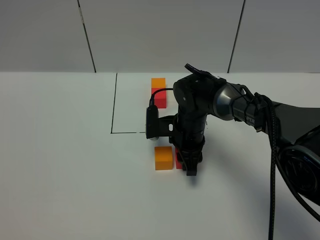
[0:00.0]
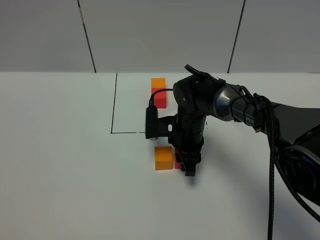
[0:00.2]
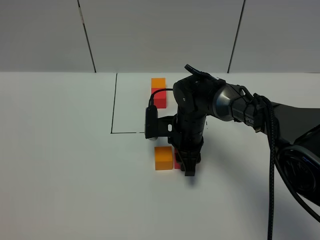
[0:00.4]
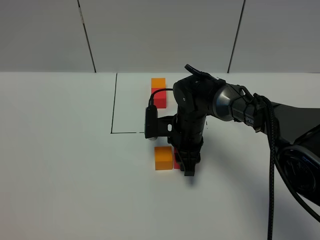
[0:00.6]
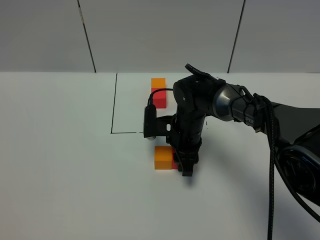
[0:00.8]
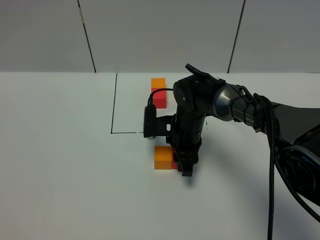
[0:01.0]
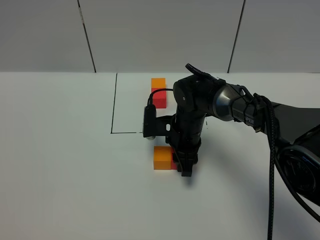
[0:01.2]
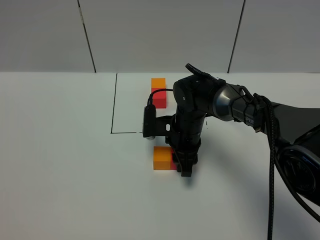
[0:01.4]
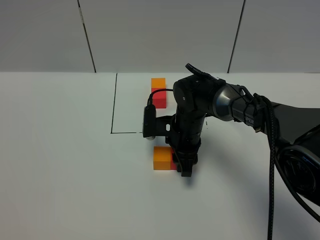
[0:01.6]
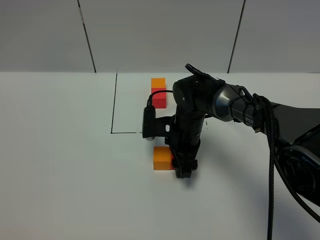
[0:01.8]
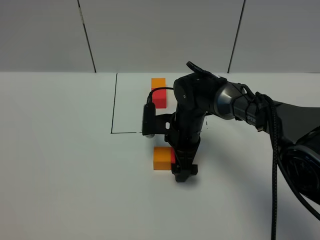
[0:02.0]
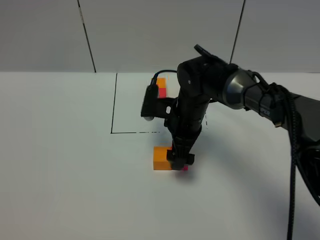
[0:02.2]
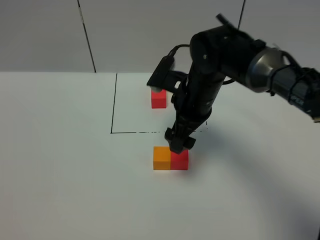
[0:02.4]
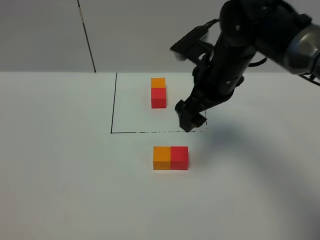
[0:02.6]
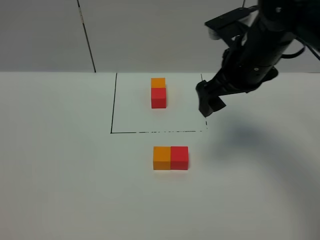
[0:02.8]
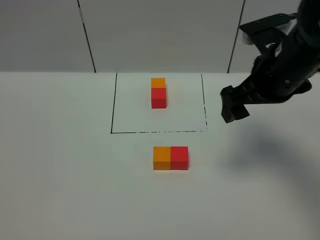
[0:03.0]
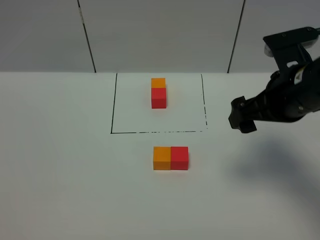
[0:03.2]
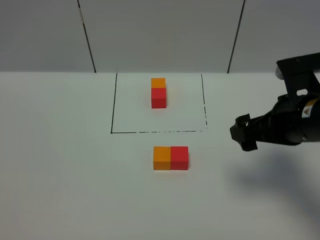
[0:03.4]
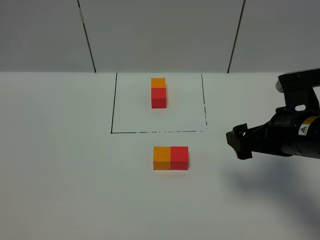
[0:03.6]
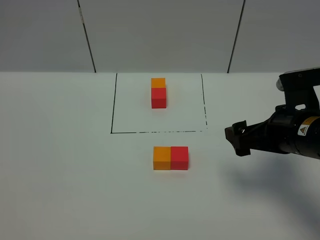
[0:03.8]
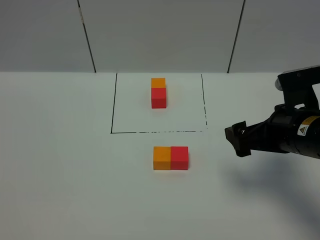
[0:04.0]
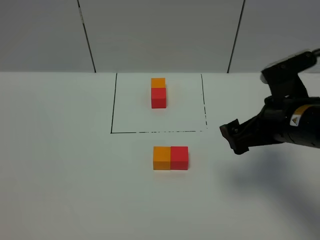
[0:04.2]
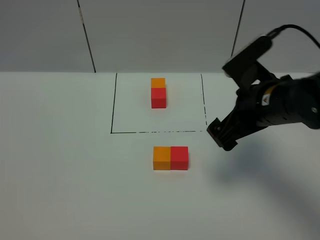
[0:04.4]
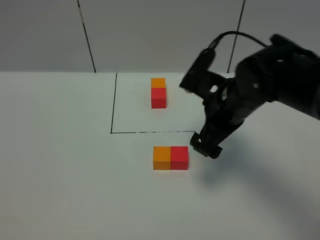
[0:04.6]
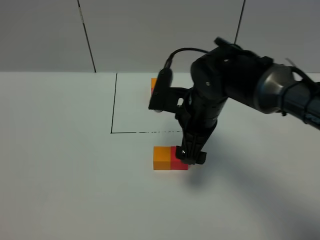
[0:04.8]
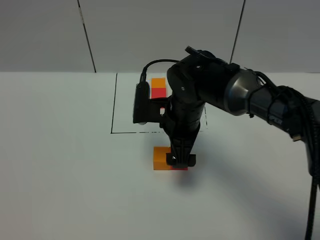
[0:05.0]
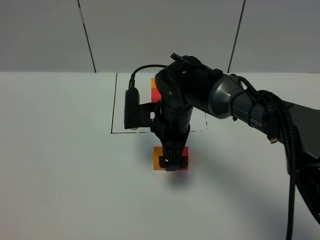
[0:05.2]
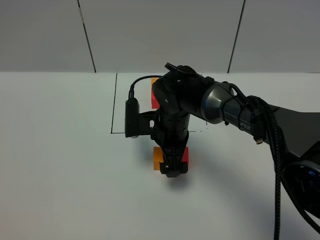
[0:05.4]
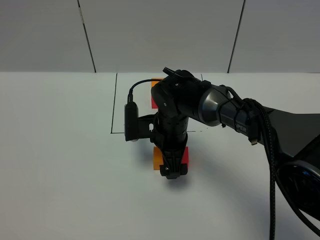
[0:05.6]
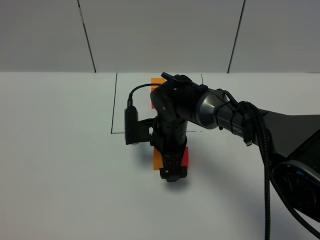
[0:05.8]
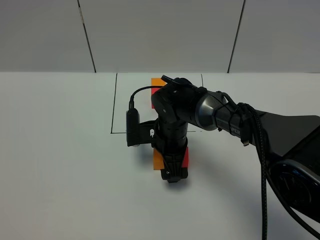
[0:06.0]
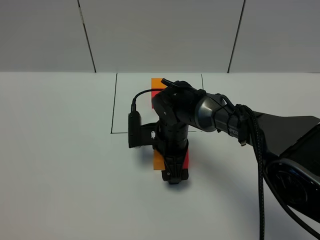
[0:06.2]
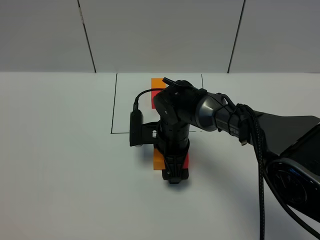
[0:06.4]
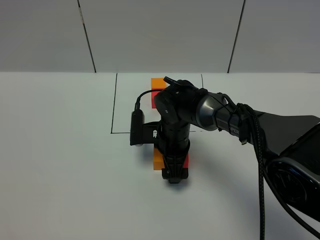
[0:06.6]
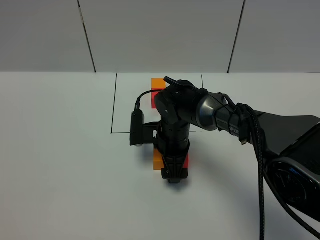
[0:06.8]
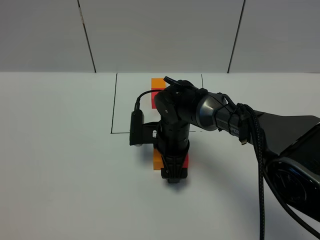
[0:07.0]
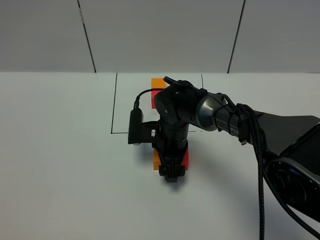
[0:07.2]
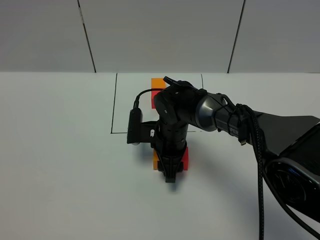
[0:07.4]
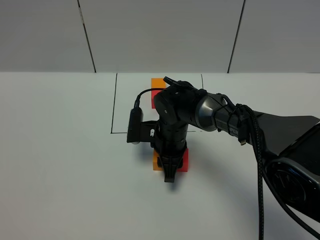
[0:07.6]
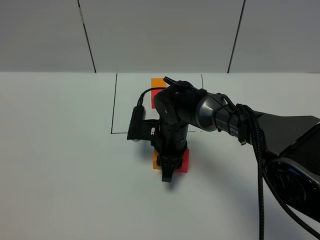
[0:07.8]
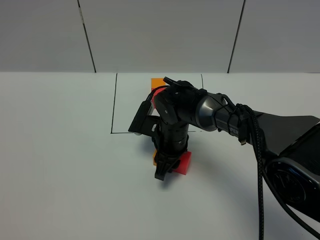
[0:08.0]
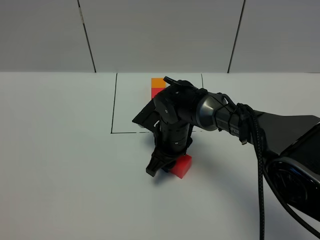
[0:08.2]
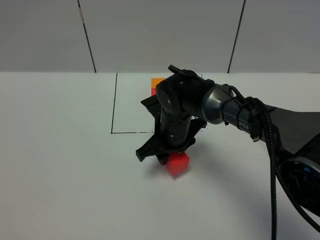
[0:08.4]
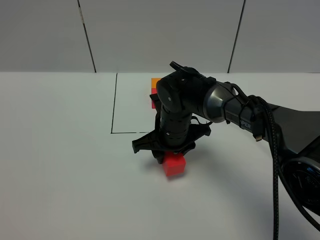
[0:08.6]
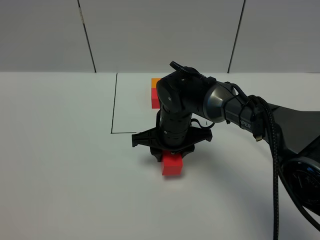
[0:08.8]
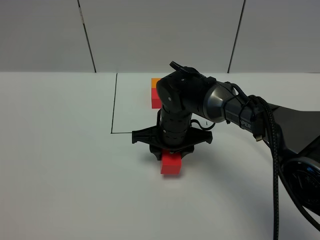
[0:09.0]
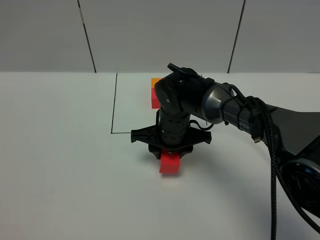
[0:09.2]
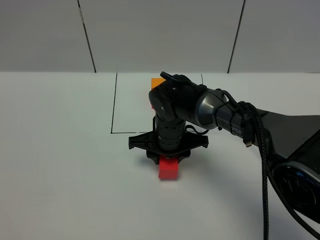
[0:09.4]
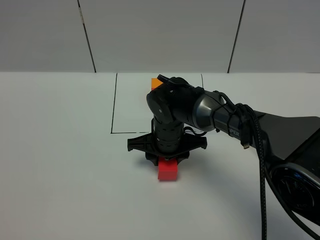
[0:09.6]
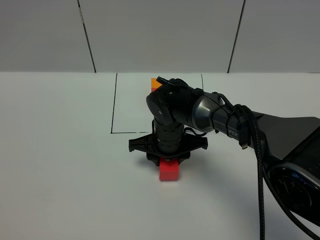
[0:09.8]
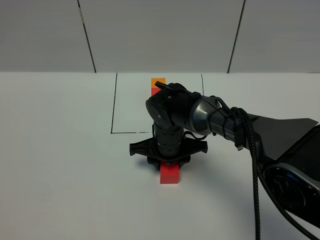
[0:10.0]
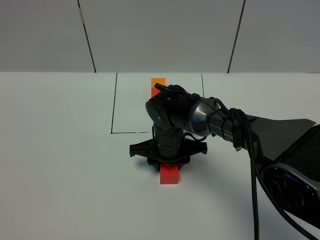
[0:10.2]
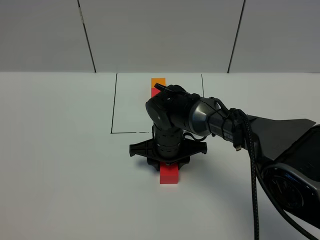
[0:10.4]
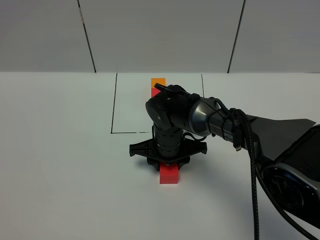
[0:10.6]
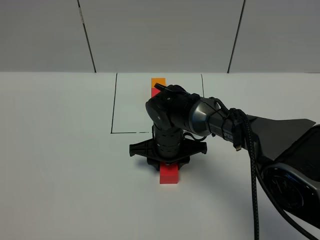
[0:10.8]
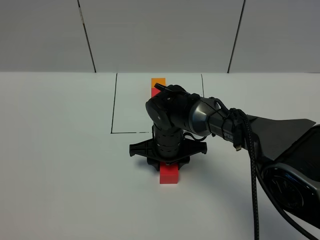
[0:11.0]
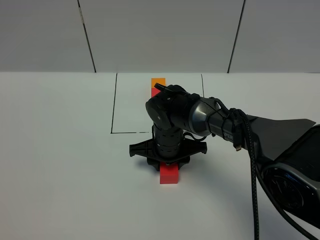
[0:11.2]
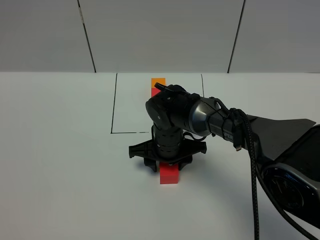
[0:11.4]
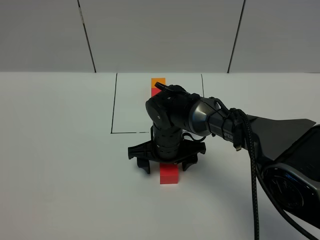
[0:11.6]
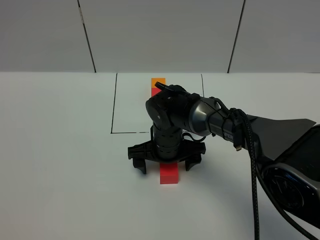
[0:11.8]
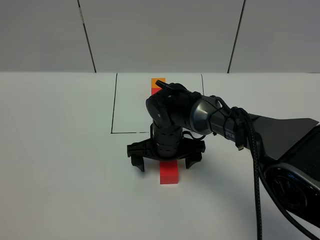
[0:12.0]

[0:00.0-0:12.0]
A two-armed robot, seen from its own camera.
Task of the whole recording: According to the building block template in front, assemble the scattered blocks together.
Step, 0:00.0 to 0:02.0: Put the red cube on the right of the orange cube.
0:00.0 to 0:01.6: Both grippers stay put.
0:01.6 to 0:03.0: The right gripper is displaced upward and to the right by some 25 cm, and opens.
0:03.0 to 0:04.4: The right gripper goes roughly 5 cm downward.
0:04.4 to 0:06.0: The right gripper shifts approximately 20 cm downward, to the left and forward.
0:06.0 to 0:07.6: The right gripper closes up.
0:09.0 to 0:10.4: There are only small adjustments of the grippers.
0:10.4 to 0:12.0: The right gripper opens up.

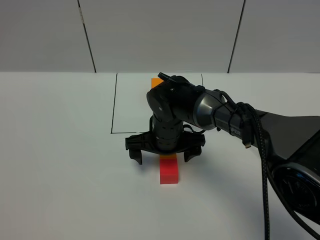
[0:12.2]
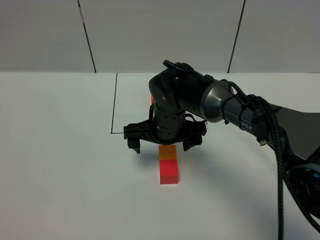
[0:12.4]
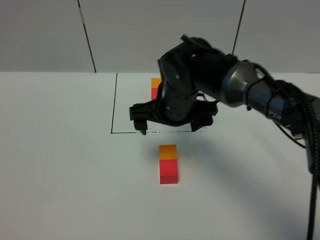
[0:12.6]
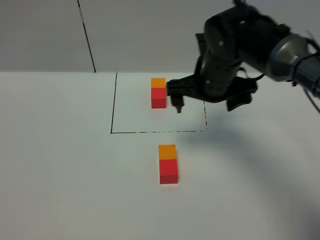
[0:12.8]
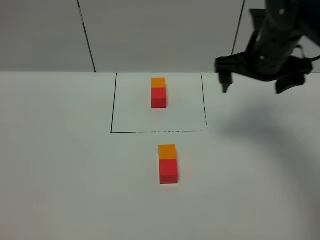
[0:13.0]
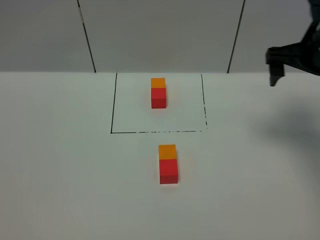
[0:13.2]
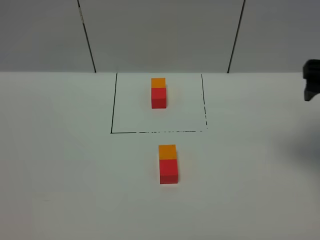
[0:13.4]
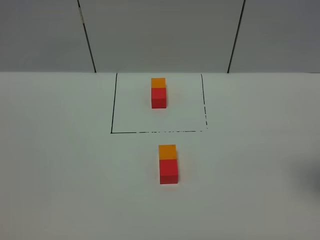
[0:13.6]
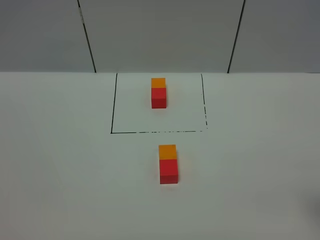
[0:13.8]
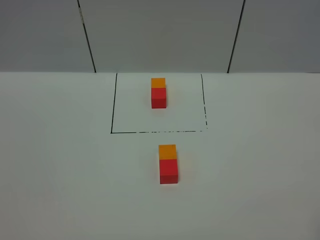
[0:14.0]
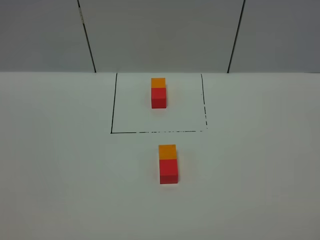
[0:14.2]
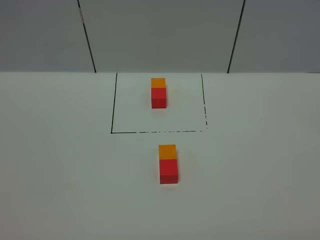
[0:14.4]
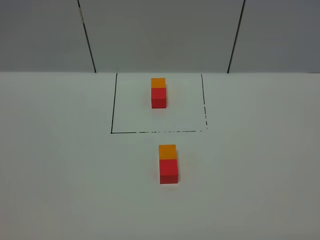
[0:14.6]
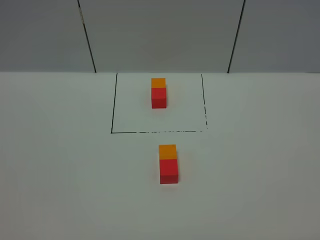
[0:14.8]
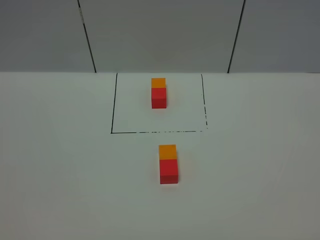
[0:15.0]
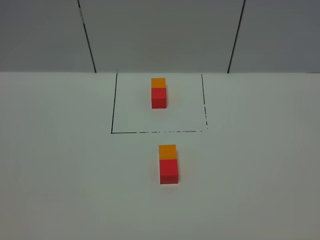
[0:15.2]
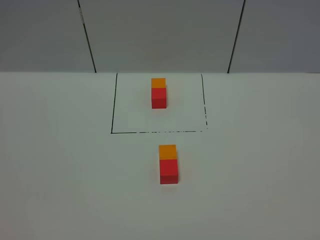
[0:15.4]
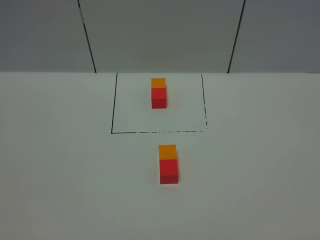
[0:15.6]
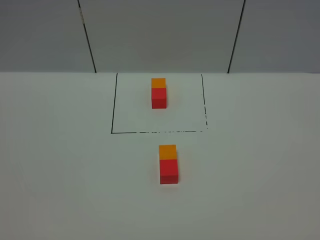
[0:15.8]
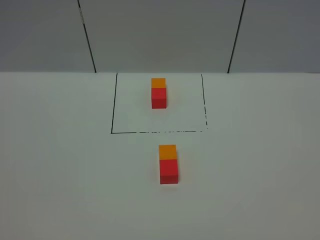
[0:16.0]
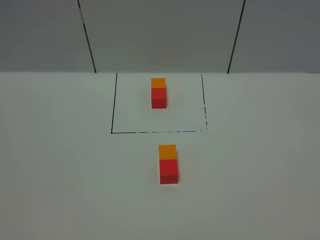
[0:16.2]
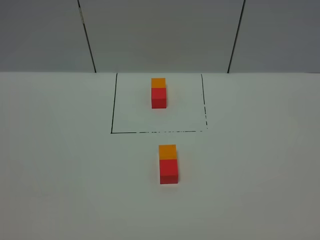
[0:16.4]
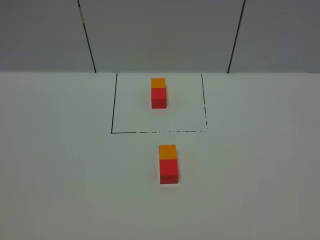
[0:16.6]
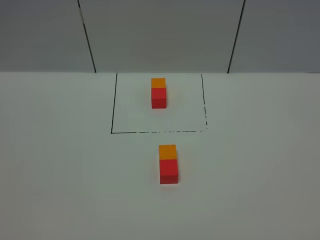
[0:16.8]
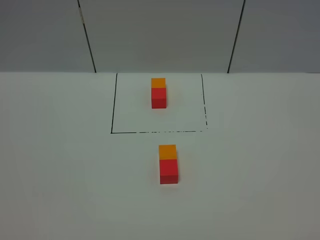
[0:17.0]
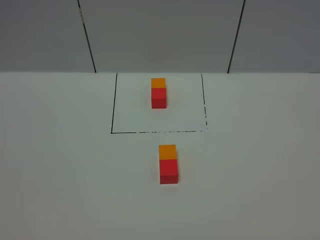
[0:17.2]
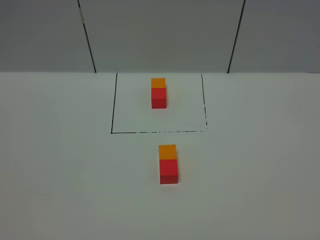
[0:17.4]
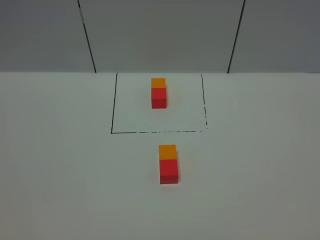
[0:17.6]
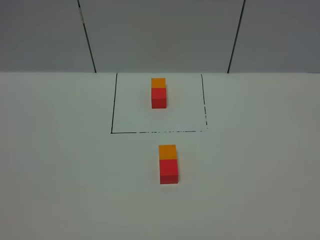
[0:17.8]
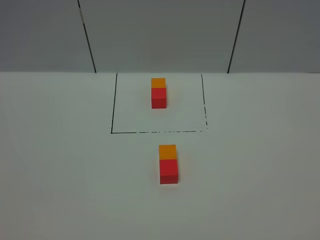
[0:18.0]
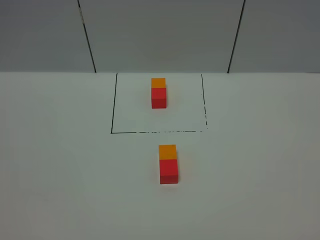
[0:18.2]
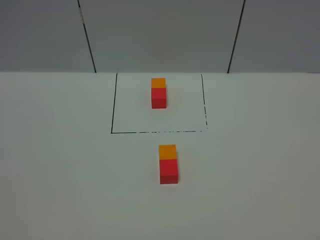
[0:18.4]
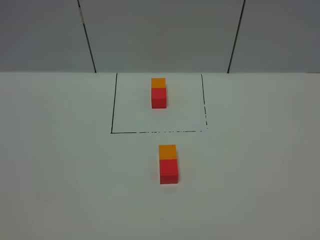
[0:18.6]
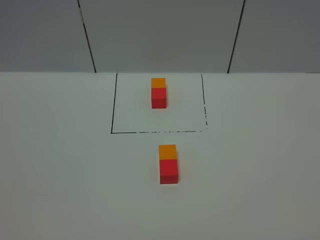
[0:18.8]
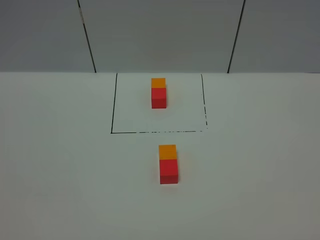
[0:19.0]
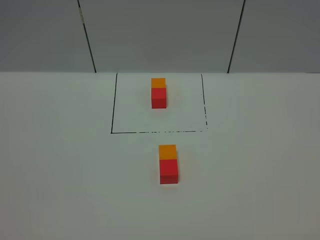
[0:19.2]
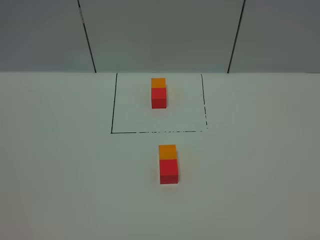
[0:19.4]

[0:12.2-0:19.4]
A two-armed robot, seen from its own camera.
Task of the whole recording: According to the building block template in front, assemble the scattered blocks together.
0:12.2 to 0:13.6: The right gripper goes about 40 cm to the right, upward and backward.
0:16.6 to 0:19.4: Both grippers stay put.

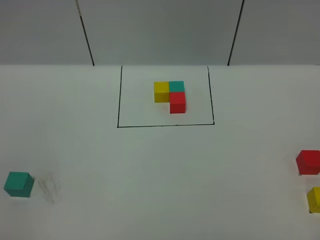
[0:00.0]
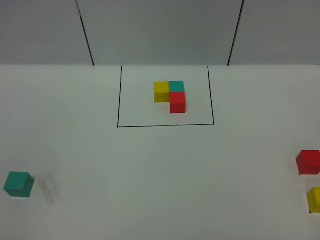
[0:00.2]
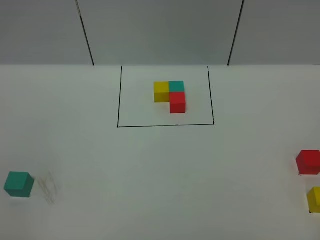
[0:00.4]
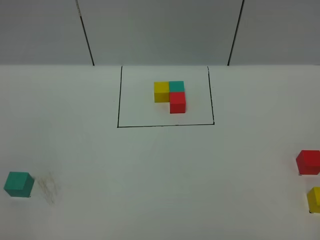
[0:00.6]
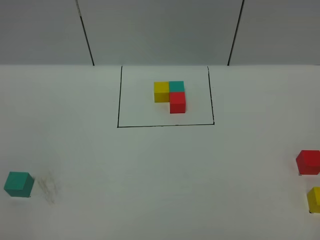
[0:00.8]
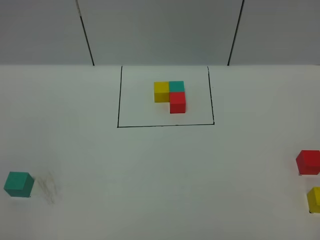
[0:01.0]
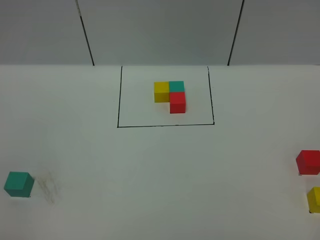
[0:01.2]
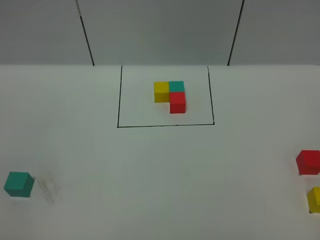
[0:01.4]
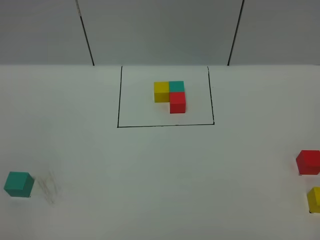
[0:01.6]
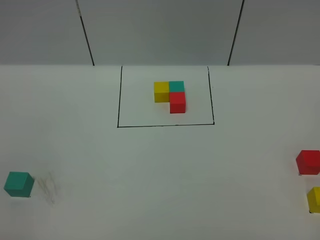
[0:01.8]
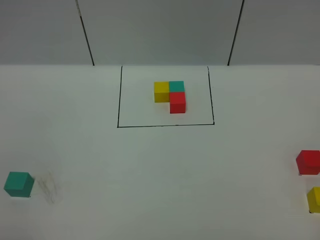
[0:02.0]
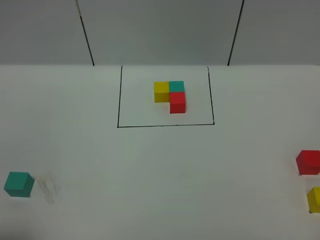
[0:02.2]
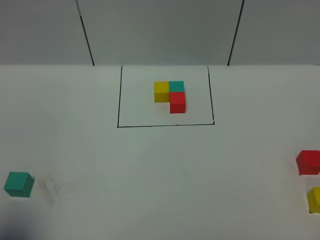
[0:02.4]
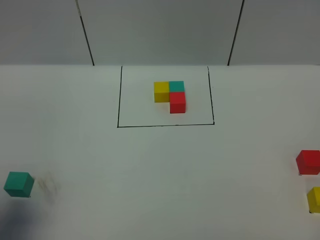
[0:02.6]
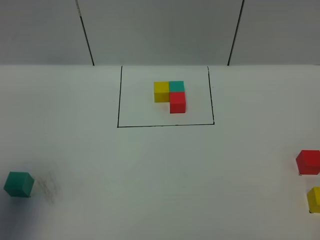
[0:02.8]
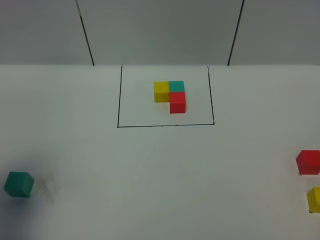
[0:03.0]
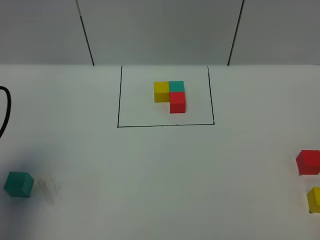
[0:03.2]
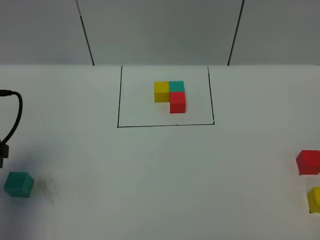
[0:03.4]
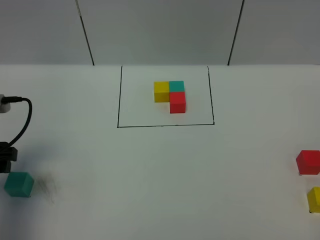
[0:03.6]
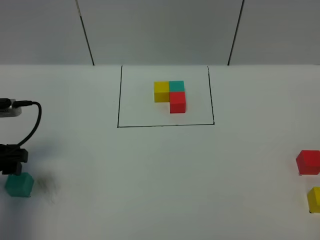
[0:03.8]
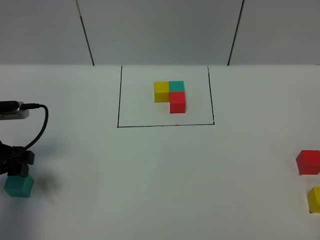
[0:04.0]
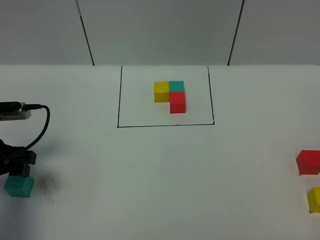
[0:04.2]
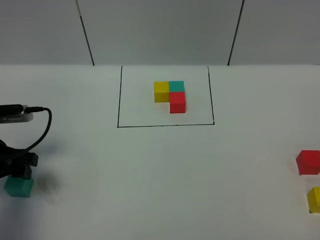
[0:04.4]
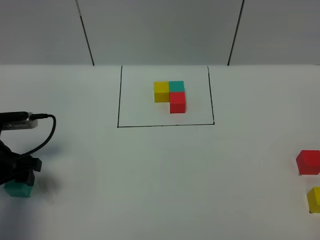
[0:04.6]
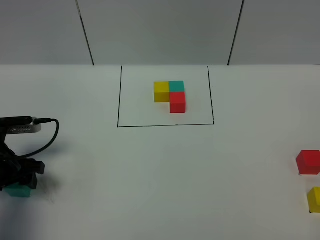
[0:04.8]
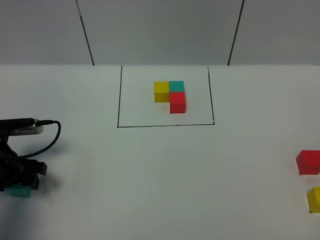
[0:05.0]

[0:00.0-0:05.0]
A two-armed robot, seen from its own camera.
Task of the whole recording: According to the building block template in front, assemble the scattered blocks together.
0:00.0 to 0:01.6: Neither gripper changes place.
0:01.6 to 0:03.4: The left gripper is displaced forward by roughly 25 cm.
0:03.4 to 0:05.0: The left gripper is displaced downward by roughly 10 cm.
